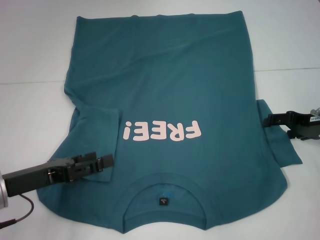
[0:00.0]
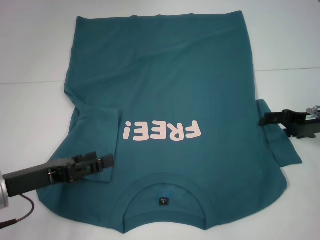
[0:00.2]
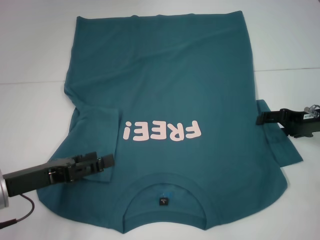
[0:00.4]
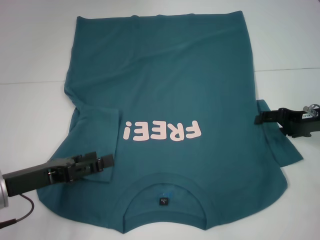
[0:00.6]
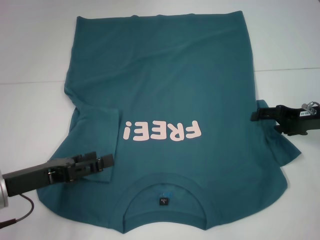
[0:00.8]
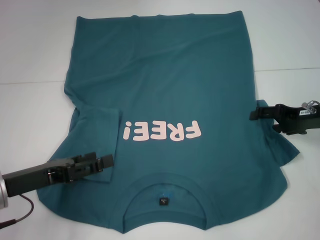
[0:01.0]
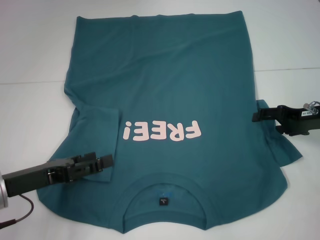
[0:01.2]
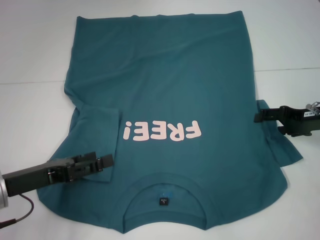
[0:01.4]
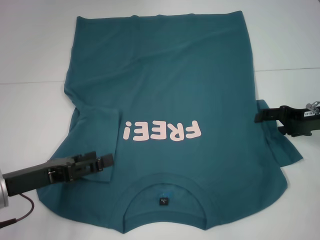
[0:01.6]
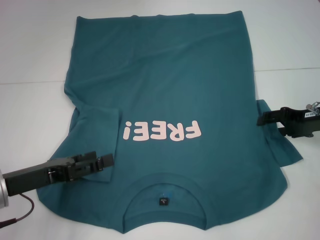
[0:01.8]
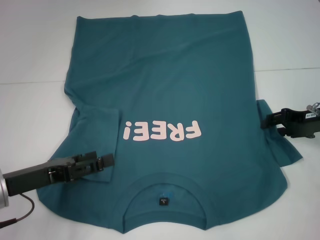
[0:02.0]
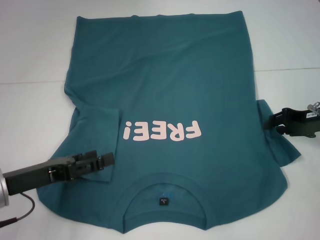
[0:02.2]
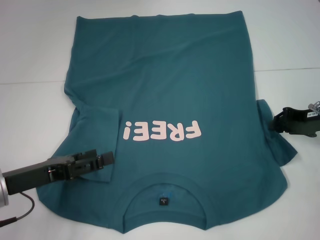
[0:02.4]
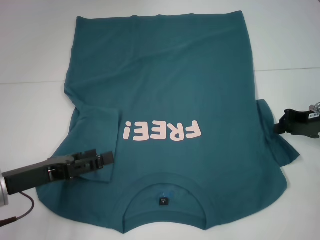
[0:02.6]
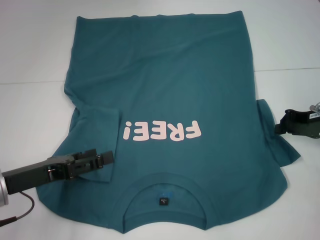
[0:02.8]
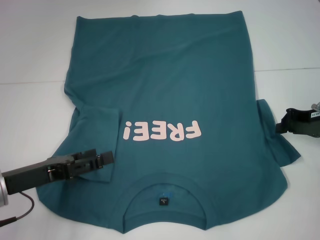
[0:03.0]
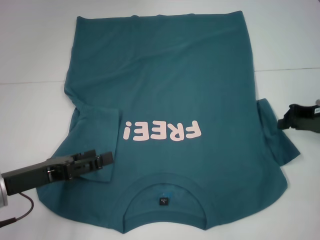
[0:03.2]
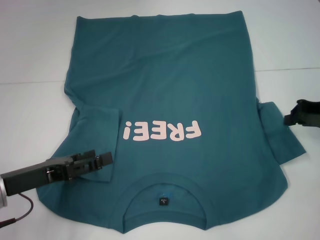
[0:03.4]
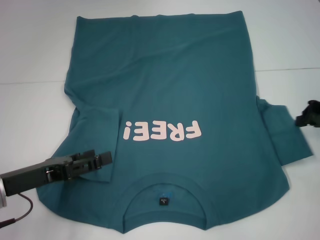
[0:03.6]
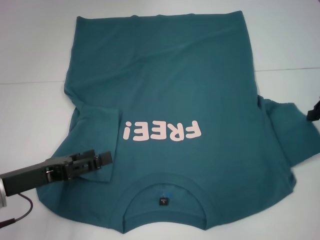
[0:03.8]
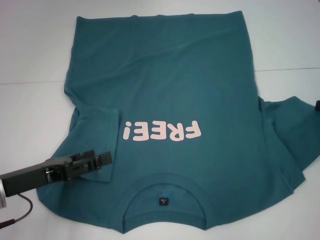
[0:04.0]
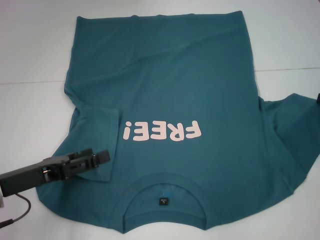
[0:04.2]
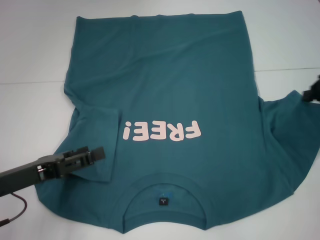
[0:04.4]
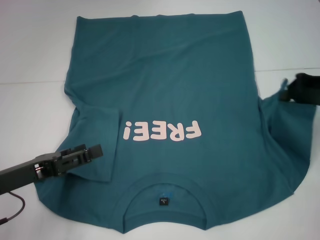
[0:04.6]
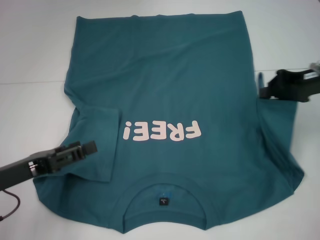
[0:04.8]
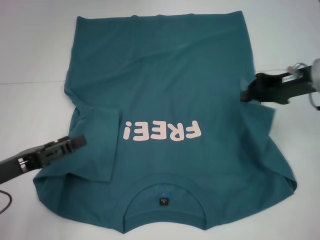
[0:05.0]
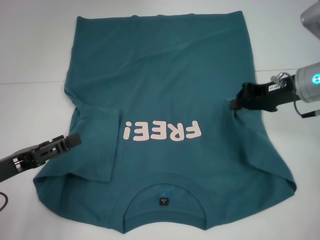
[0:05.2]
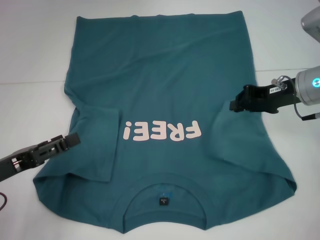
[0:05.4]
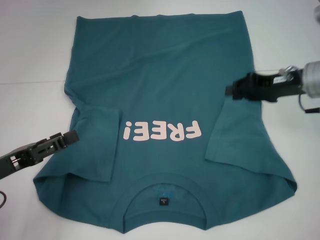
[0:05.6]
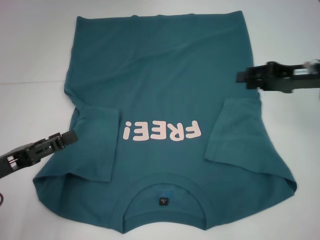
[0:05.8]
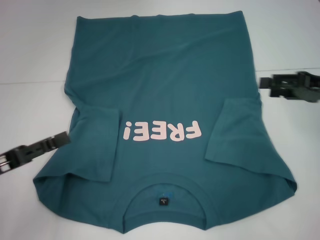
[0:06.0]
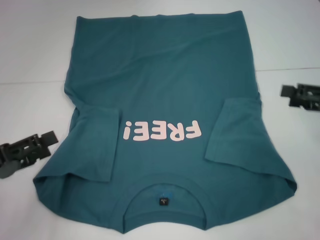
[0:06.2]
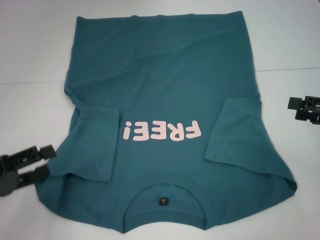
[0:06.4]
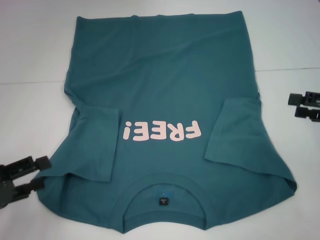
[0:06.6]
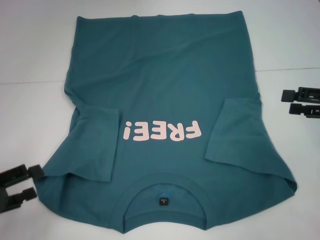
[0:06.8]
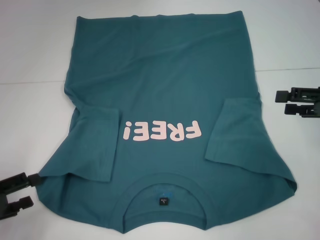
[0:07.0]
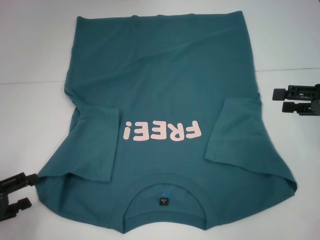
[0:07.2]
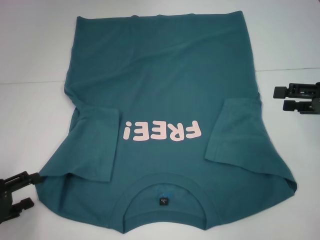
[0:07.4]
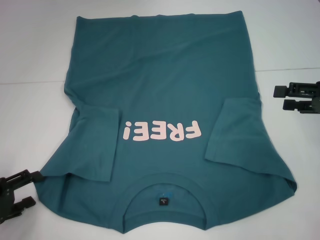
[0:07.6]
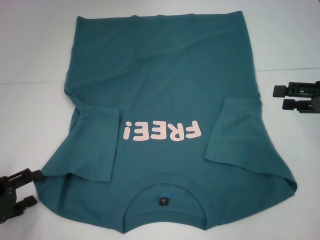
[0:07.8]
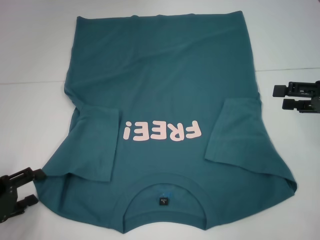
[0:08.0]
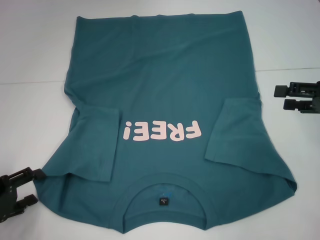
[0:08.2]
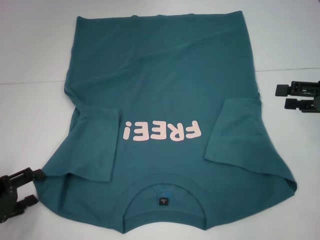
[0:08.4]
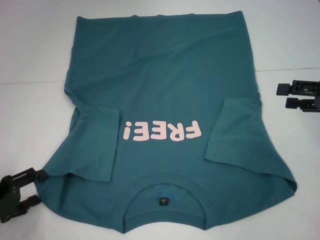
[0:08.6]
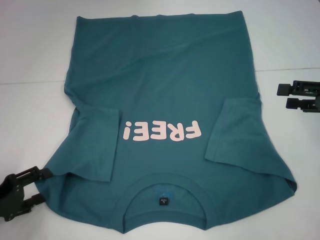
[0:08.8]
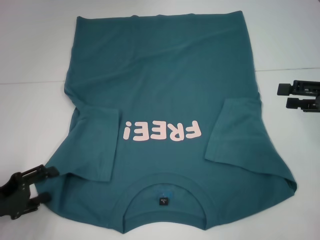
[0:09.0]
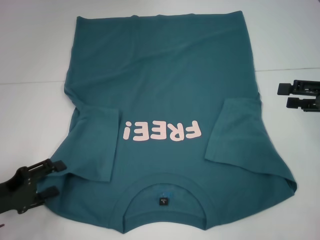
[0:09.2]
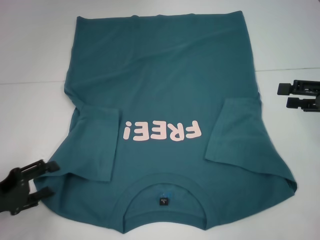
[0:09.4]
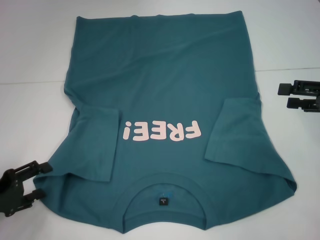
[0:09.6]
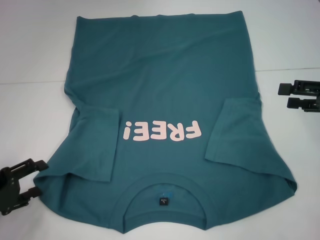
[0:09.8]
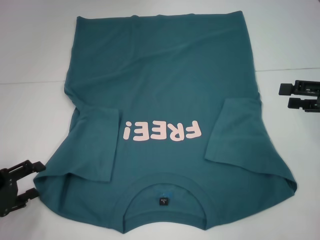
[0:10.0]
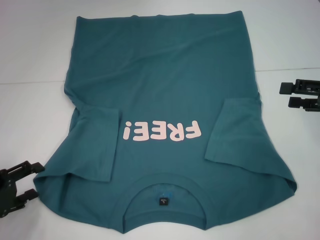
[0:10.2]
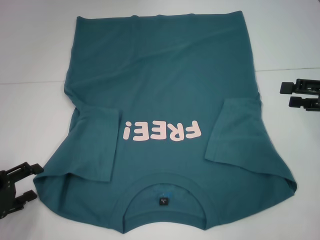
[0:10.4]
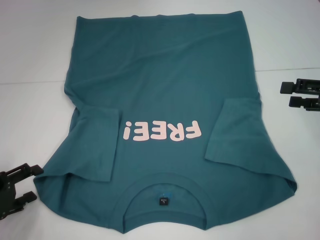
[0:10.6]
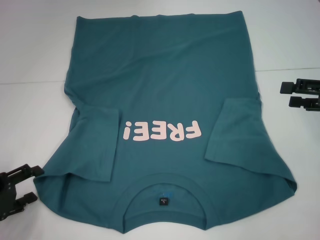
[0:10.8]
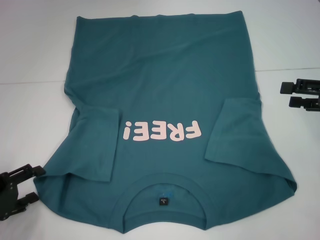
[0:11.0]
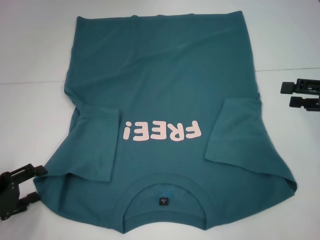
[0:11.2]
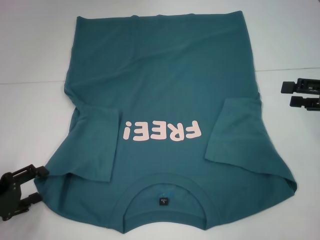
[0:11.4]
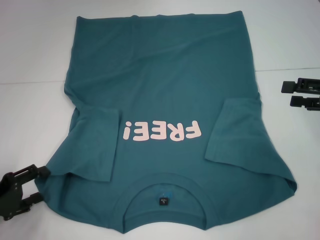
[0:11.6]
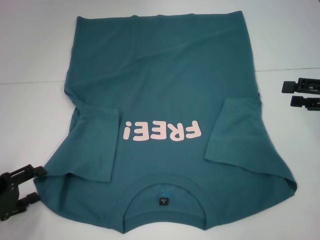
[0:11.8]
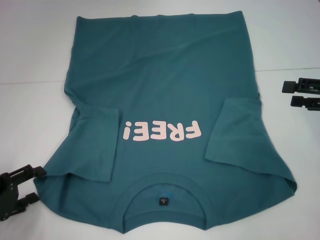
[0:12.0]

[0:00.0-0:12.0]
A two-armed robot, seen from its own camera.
Step, 0:00.0 to 0:05.6: Fold the bottom right sleeve to the right.
0:00.0 to 0:01.6: The grippers make only small movements.
0:01.6 to 0:03.0: The right gripper closes up.
0:03.0 to 0:04.4: The right gripper shifts some 5 cm upward.
0:04.4 to 0:06.0: The right gripper moves approximately 10 cm to the left and comes back, and opens up.
0:06.0 to 0:07.6: The left gripper shifts some 5 cm downward.
0:07.6 to 0:10.4: There are only small adjustments of the grippers.
0:10.4 to 0:12.0: The two grippers keep their place.

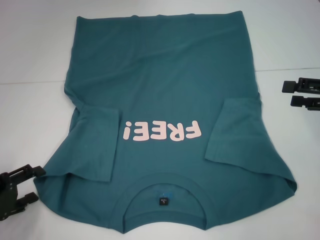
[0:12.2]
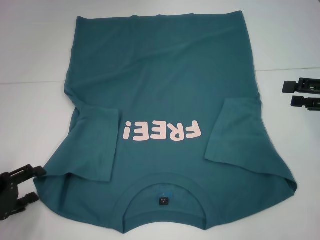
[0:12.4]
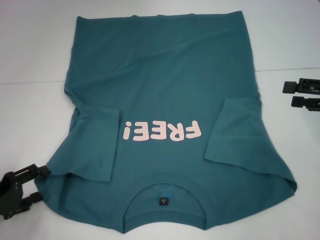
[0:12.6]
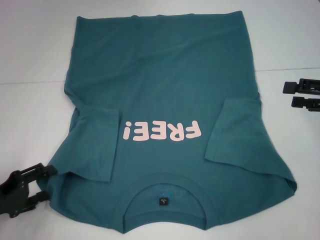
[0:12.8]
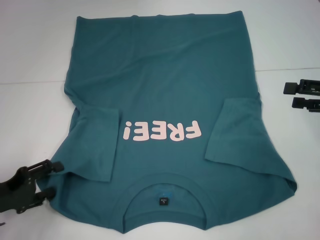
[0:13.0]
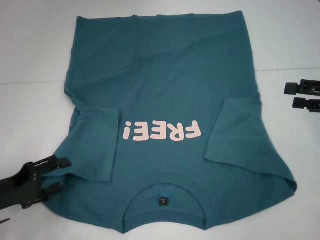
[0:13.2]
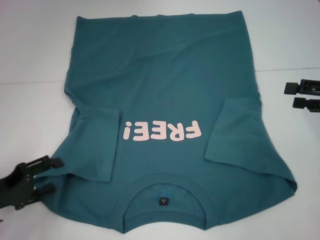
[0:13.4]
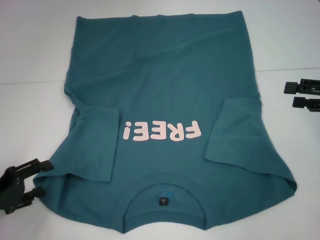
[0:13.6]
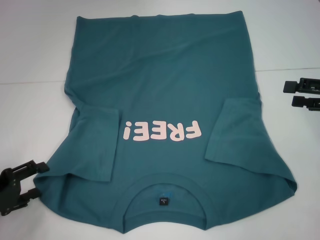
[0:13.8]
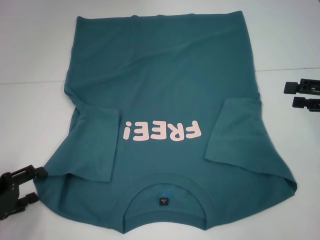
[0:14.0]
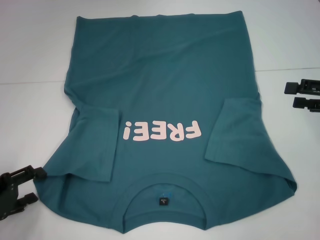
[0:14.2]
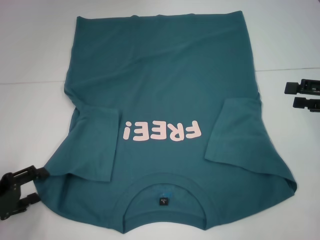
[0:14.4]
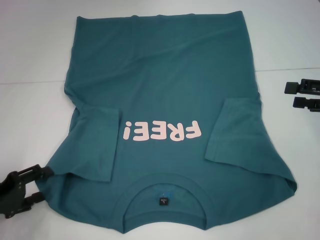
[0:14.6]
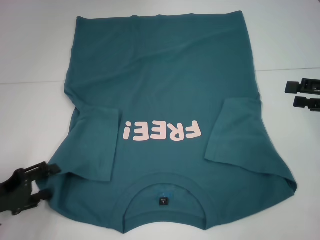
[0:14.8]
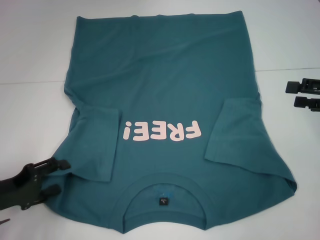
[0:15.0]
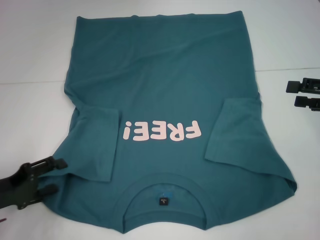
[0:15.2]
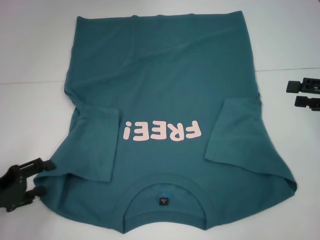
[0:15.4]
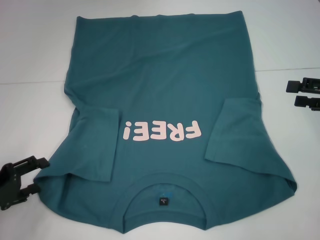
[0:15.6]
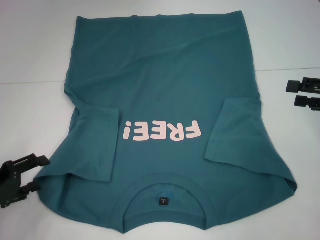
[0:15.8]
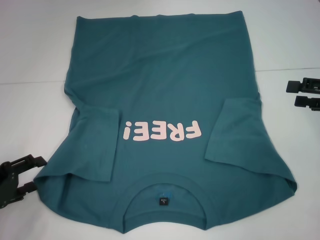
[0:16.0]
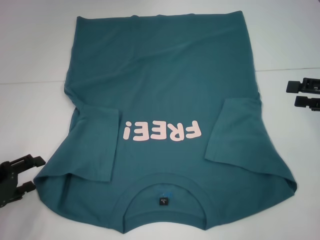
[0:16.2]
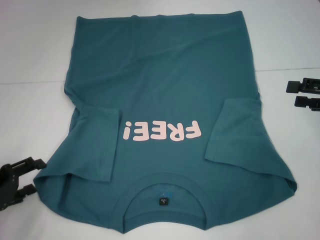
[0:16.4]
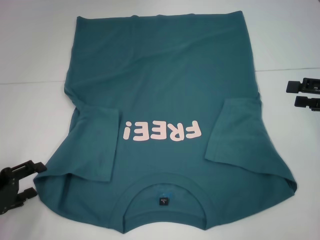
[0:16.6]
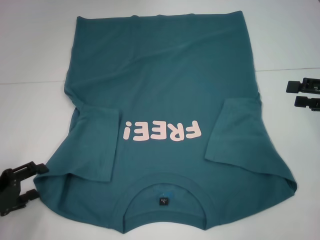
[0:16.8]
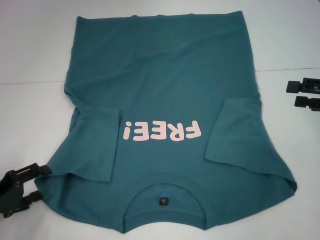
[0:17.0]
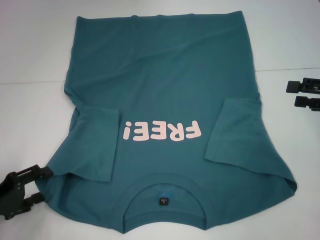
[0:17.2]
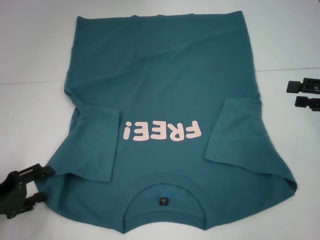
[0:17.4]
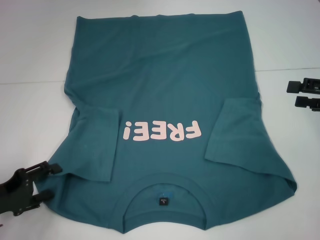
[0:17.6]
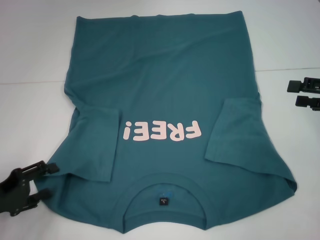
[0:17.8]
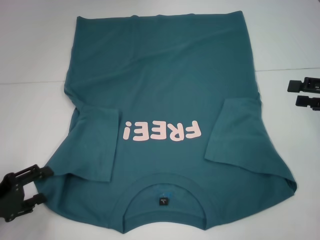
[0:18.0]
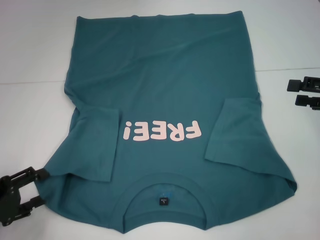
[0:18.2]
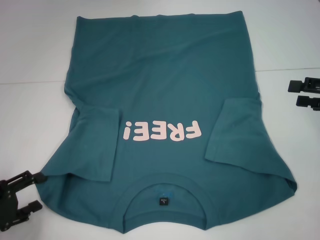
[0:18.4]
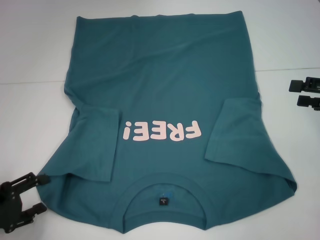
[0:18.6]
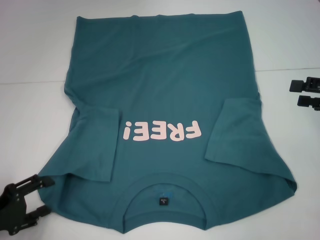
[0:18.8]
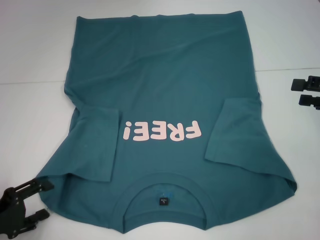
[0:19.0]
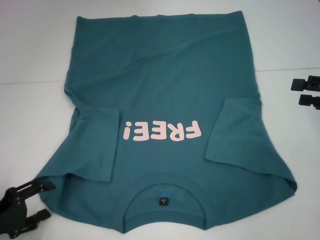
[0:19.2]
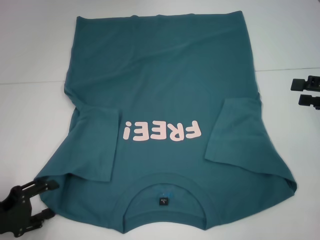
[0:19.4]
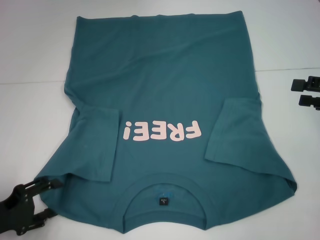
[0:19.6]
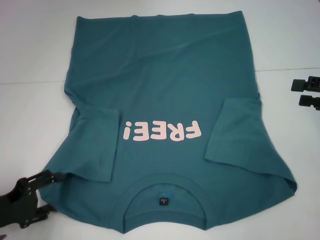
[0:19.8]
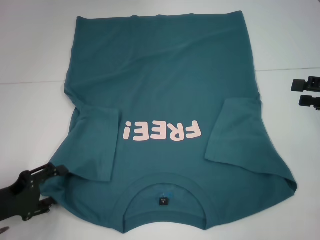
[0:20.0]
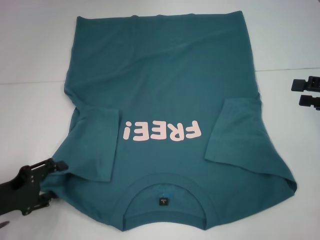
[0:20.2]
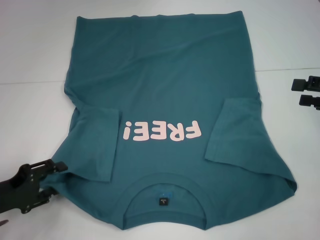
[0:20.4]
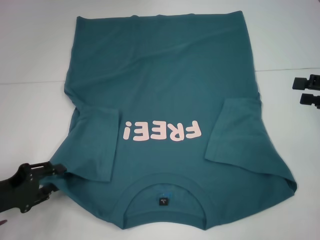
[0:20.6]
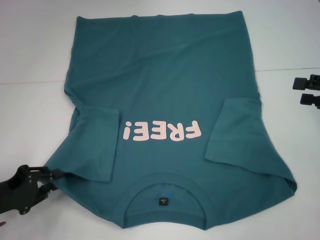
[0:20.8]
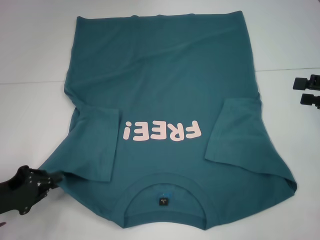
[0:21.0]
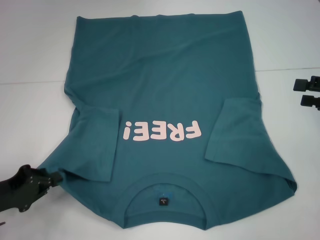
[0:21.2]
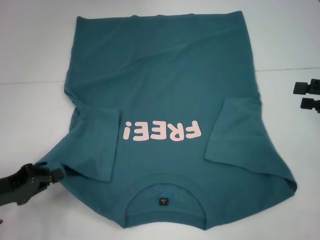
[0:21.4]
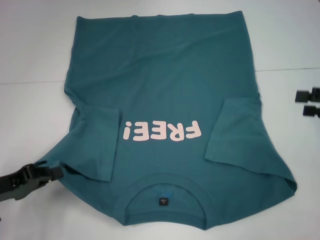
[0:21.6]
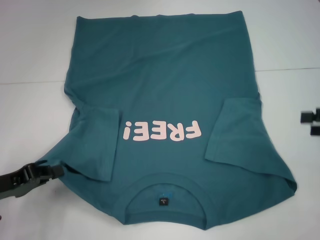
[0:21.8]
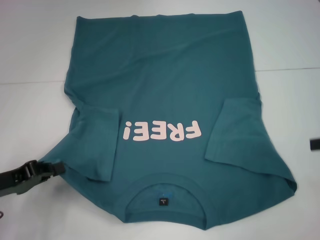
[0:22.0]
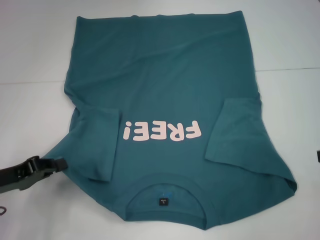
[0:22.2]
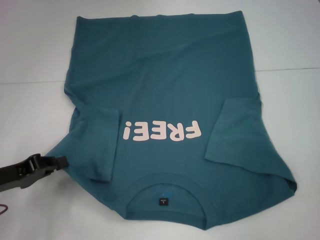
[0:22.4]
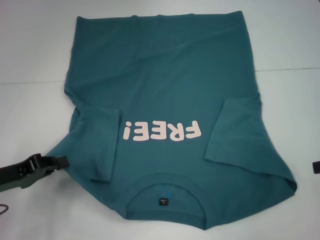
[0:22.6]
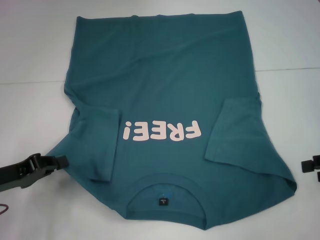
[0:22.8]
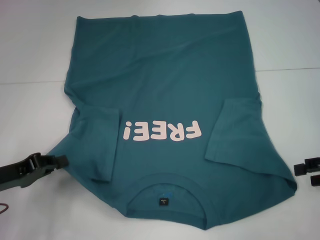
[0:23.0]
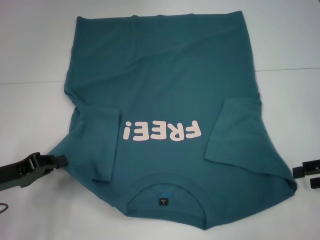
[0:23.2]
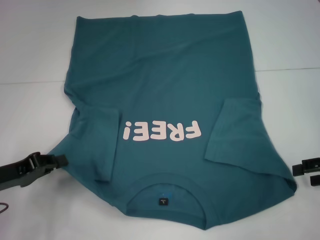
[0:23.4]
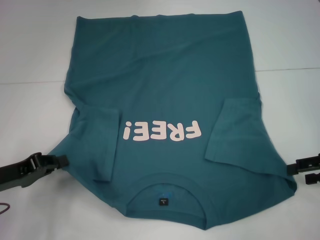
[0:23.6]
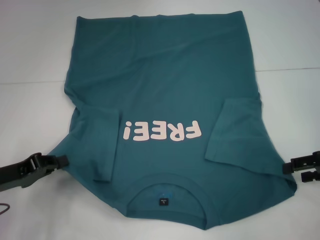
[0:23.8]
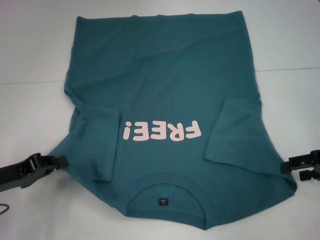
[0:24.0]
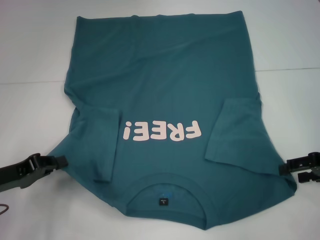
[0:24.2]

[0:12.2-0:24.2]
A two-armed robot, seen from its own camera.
Step, 0:12.2 to 0:21.0: Grab the bottom left corner with your left hand.
0:12.2 to 0:19.8: The grippers make only small movements.
0:19.8 to 0:21.2: The left gripper closes its fingers.
0:22.6 to 0:24.2: The right gripper shifts by about 5 cm.
